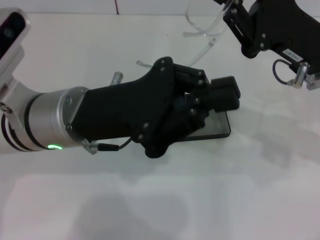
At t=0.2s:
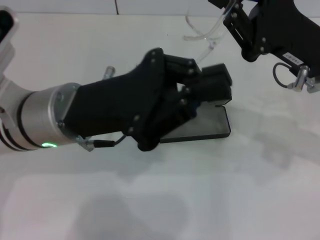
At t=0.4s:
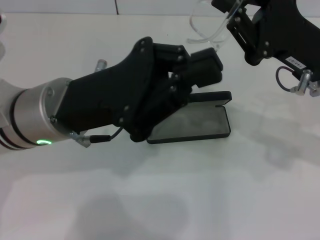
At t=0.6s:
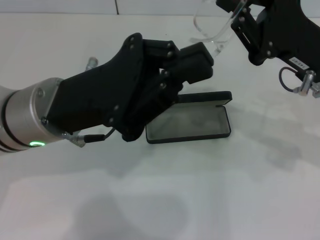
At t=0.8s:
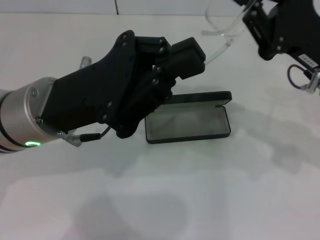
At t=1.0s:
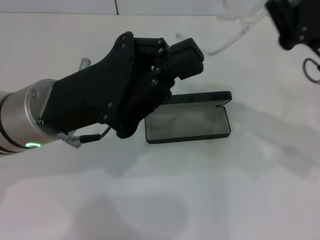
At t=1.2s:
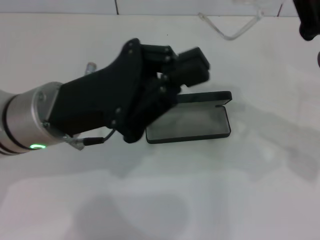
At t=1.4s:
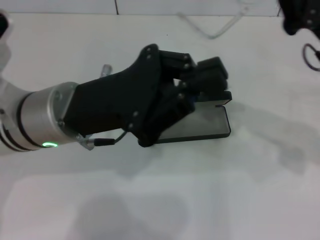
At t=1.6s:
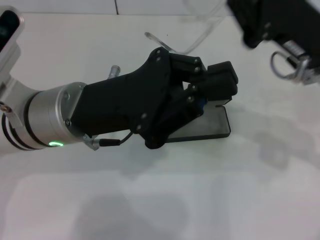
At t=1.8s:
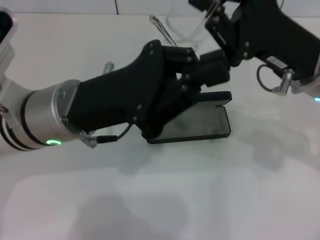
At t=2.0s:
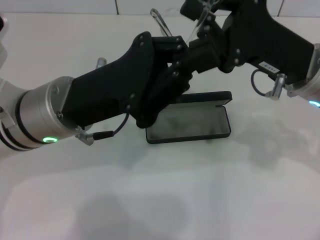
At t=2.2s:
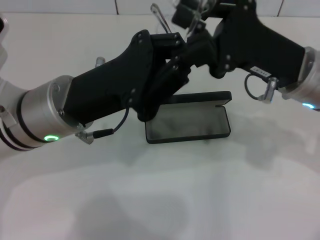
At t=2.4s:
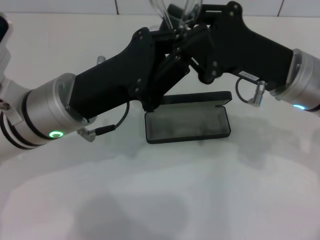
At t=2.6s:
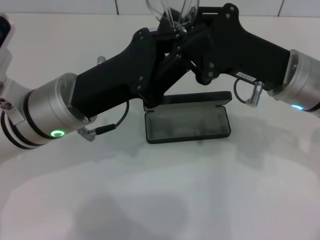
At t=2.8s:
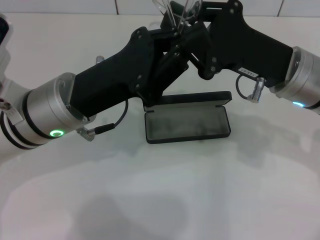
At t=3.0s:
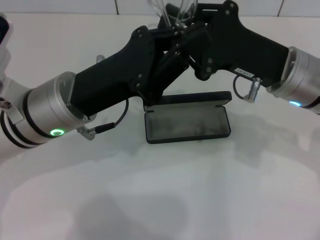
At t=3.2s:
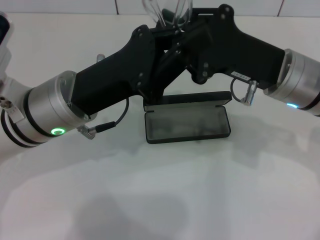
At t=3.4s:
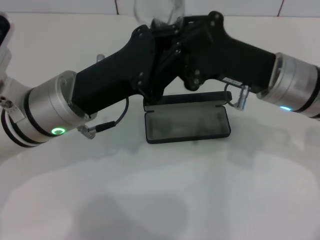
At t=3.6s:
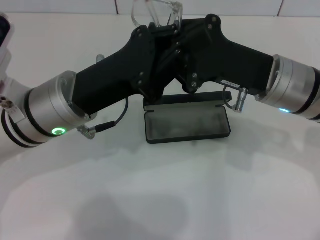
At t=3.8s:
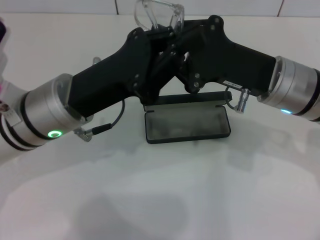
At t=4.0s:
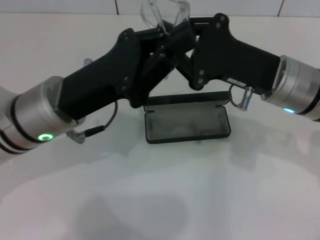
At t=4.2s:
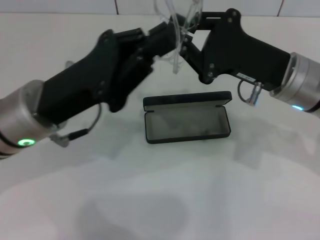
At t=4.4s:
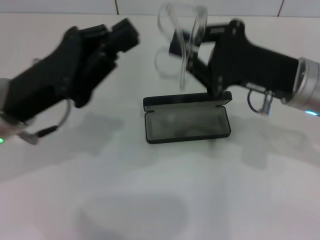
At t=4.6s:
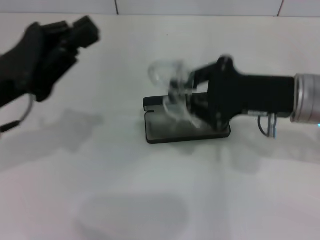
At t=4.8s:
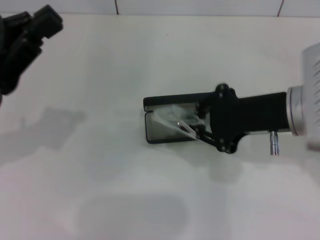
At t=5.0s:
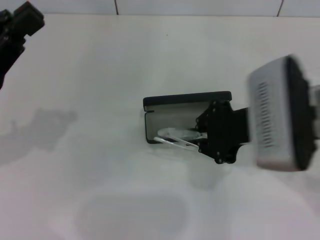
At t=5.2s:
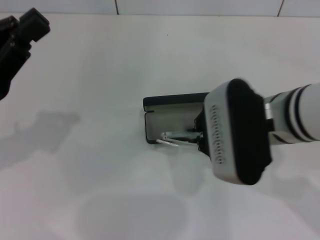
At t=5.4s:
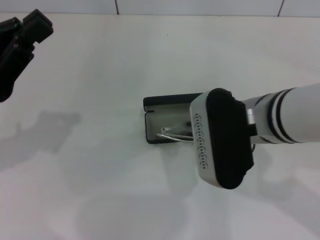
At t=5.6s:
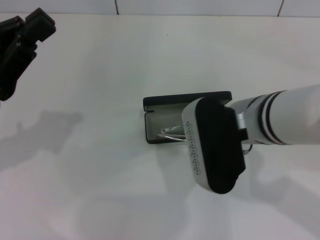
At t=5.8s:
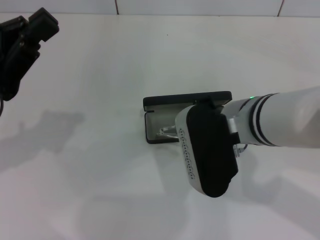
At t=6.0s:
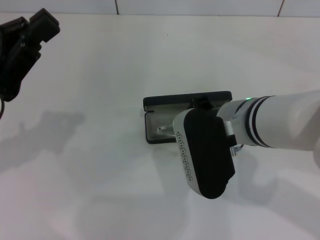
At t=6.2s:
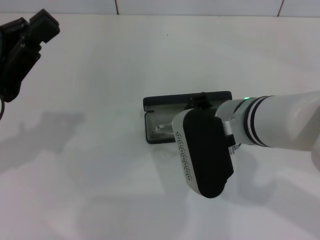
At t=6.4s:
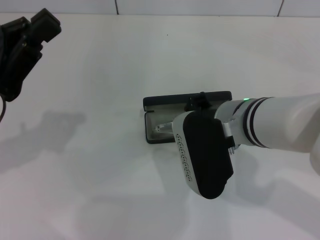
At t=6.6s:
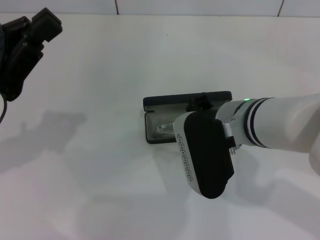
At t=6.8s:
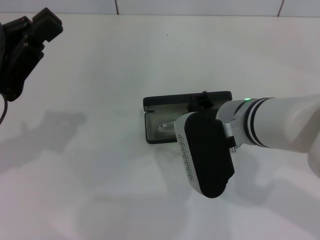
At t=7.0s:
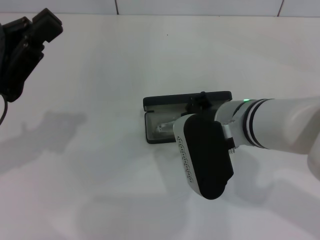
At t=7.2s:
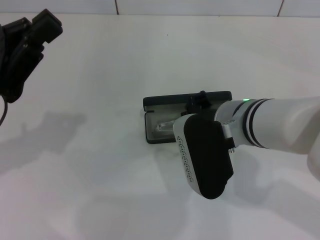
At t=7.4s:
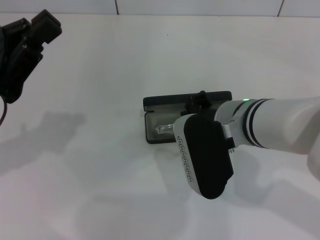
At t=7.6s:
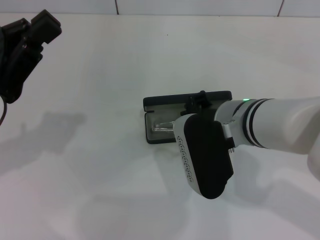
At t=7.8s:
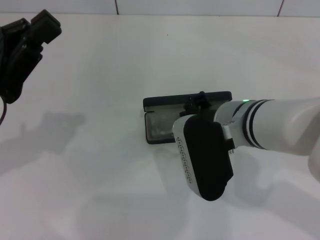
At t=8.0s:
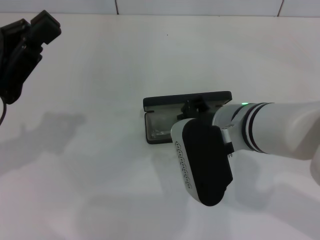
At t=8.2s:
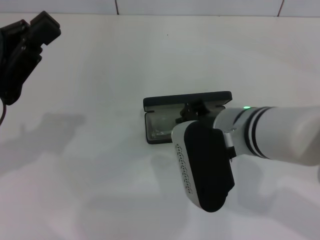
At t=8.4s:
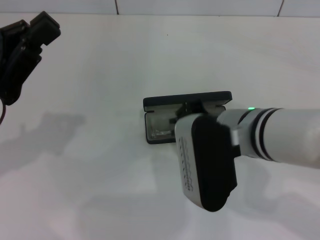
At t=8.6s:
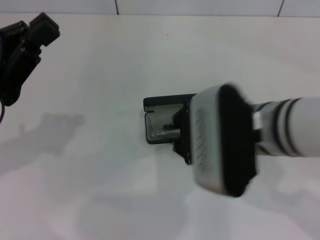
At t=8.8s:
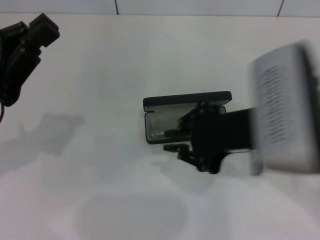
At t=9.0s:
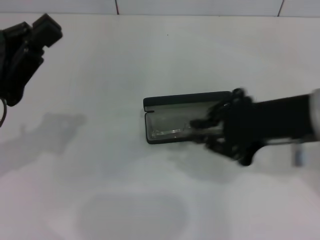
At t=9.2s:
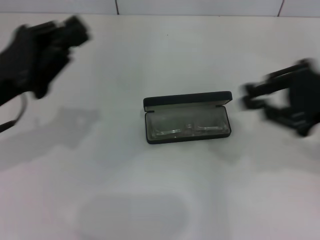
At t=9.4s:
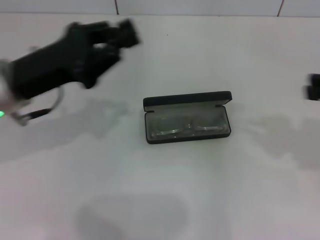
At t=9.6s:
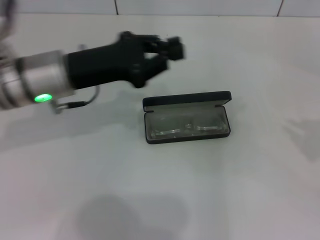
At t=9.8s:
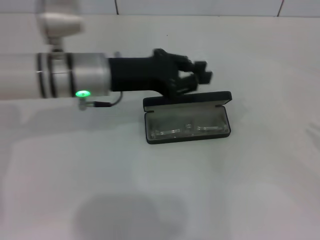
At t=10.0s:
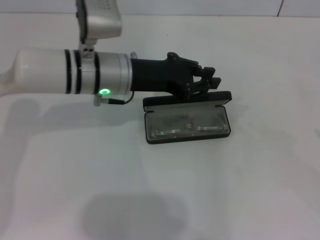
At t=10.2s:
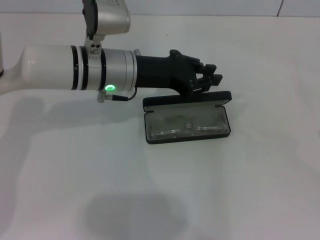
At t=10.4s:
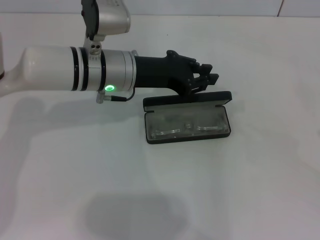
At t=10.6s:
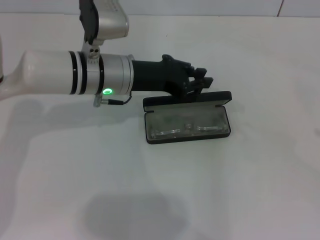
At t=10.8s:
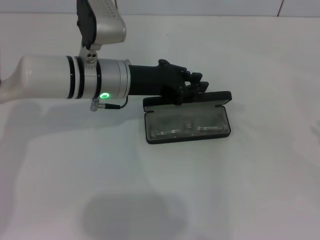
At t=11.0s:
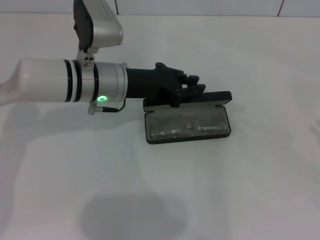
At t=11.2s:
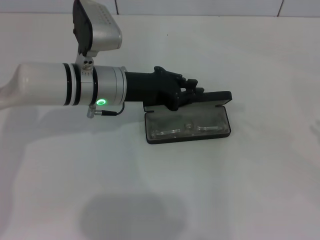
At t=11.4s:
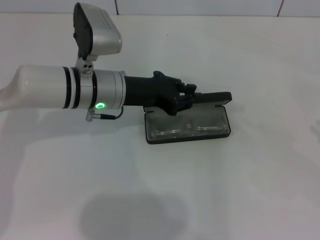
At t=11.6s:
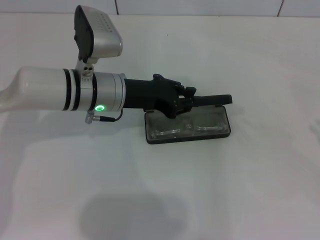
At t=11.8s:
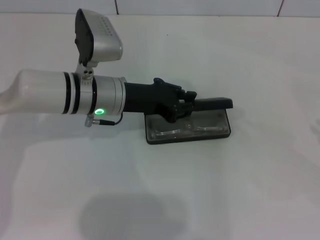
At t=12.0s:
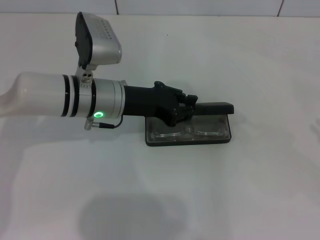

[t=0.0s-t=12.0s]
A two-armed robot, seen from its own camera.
Step, t=0.0s to t=3.8s: Fold the frame with your left hand.
Step, t=4.0s to t=8.4s: Put the glasses into the case with your right hand.
t=0.0s to t=1.6s: The grippers move only a little.
t=3.0s to t=4.4s: The left gripper moves to the left, approximately 5 cm.
t=4.4s to t=6.0s: The left gripper goes roughly 5 cm to the left. The right gripper moves to the left, about 10 cm.
t=6.0s to t=7.6s: The two grippers keep their place.
t=7.6s to t=9.0s: The right gripper travels to the right and upward by some 15 cm.
t=9.0s to t=10.4s: The right gripper heads to the right, covering about 25 cm. Meanwhile the left gripper travels to the right and forward by approximately 20 cm.
t=10.4s to t=12.0s: The grippers make only small movements.

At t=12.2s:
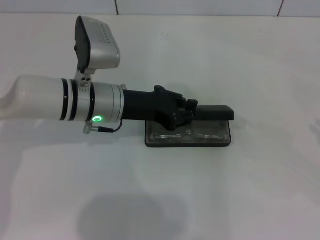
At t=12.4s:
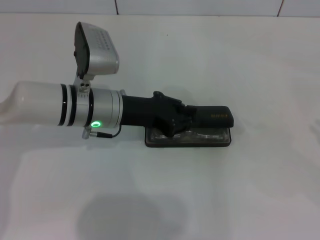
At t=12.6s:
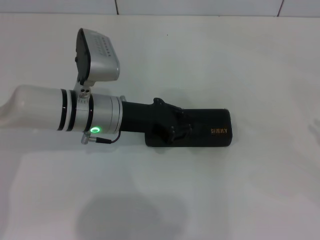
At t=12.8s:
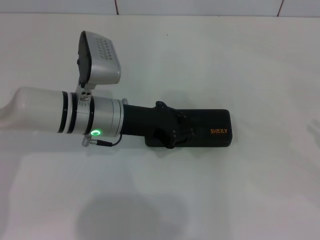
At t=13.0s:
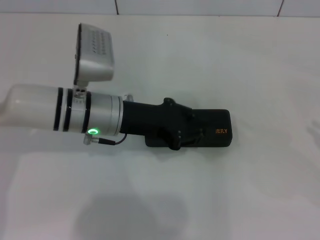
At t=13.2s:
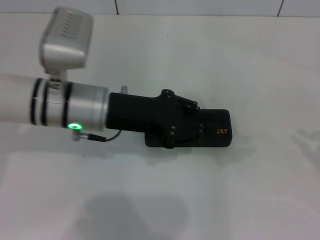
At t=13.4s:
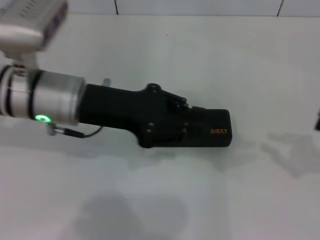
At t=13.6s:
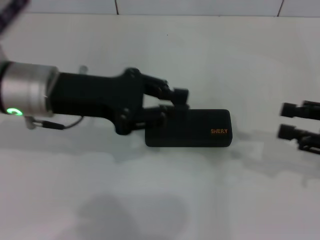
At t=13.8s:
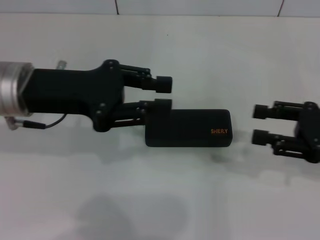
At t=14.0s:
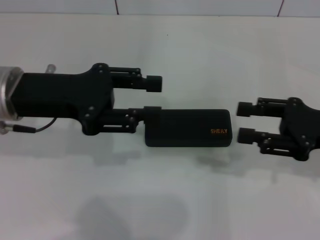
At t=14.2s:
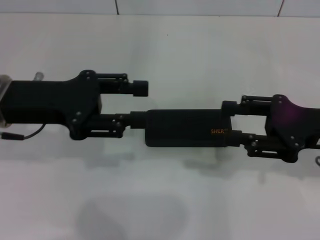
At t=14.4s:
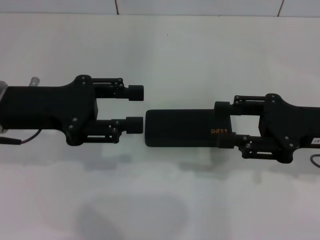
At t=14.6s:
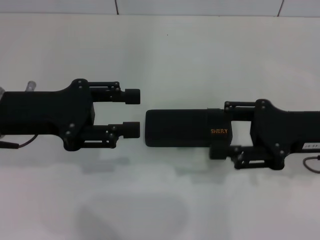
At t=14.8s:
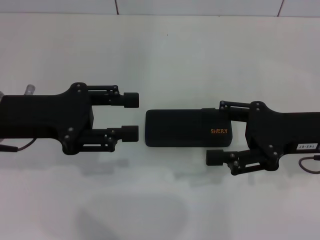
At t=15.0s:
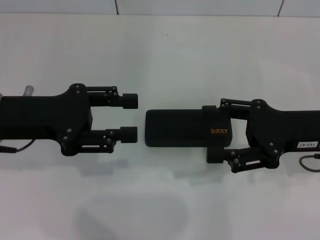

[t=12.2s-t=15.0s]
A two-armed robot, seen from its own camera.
t=12.2s to t=13.6s: The right gripper shifts roughly 10 cm to the left. The left gripper heads upward and to the left, covering some 10 cm.
t=13.6s to t=15.0s: The right gripper goes about 10 cm to the left, and opens up; the left gripper heads to the left, covering approximately 5 cm, and opens.
